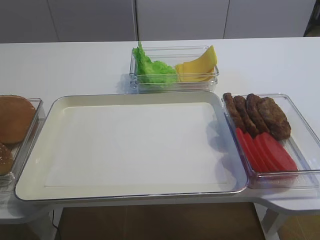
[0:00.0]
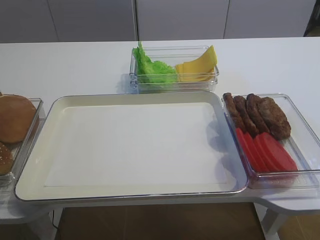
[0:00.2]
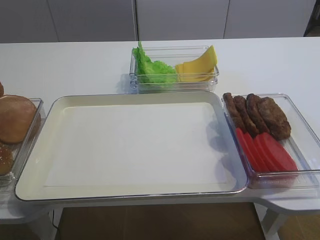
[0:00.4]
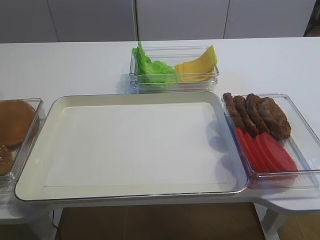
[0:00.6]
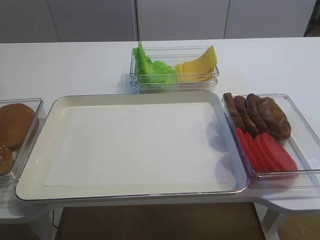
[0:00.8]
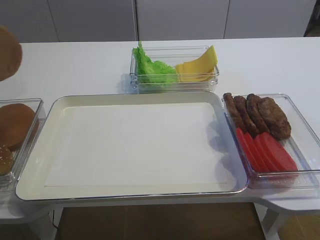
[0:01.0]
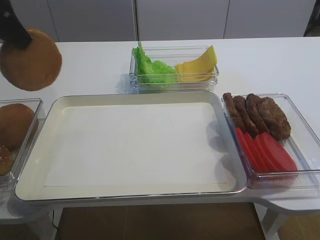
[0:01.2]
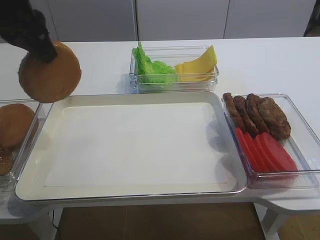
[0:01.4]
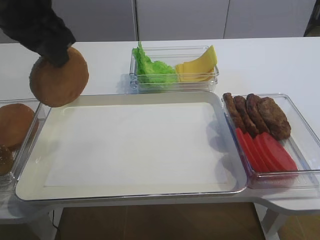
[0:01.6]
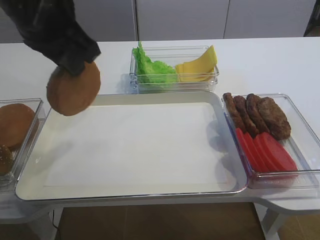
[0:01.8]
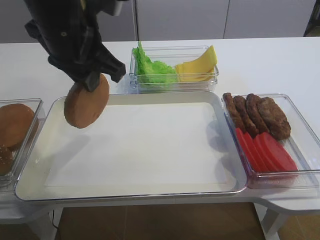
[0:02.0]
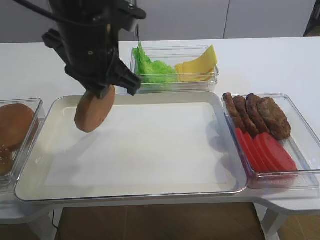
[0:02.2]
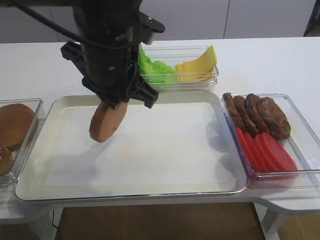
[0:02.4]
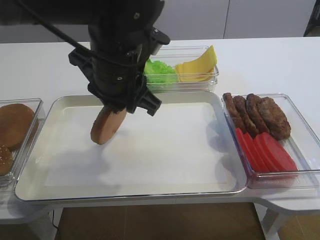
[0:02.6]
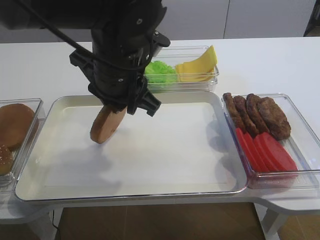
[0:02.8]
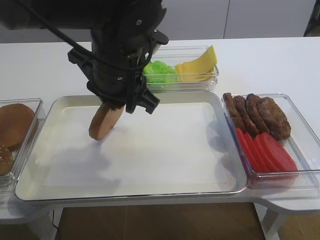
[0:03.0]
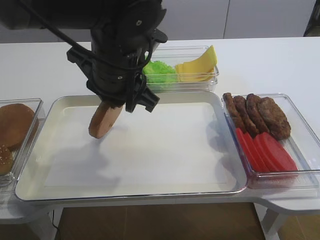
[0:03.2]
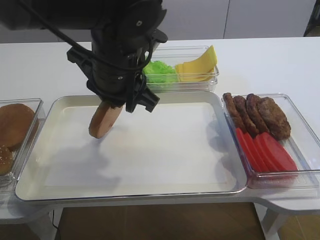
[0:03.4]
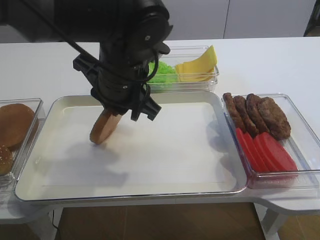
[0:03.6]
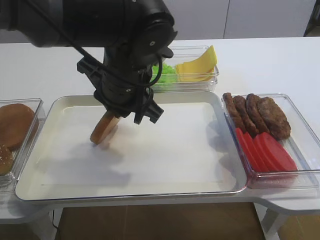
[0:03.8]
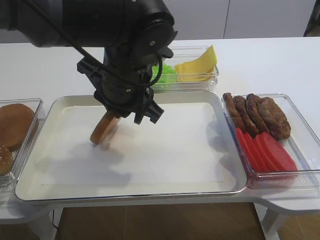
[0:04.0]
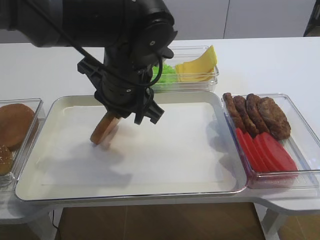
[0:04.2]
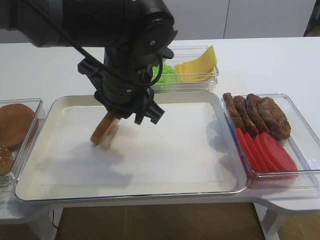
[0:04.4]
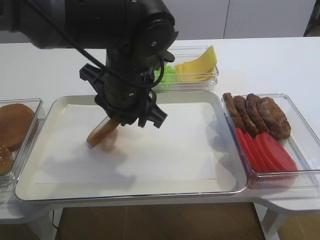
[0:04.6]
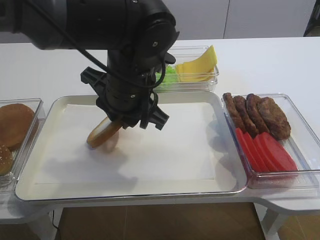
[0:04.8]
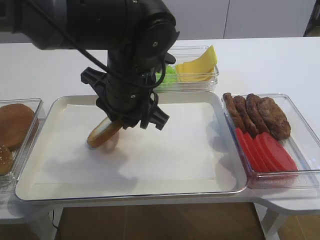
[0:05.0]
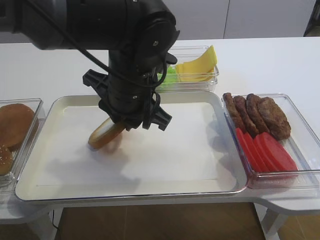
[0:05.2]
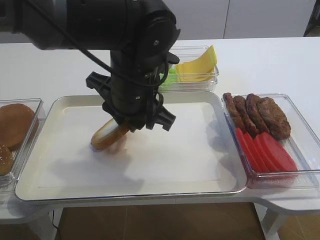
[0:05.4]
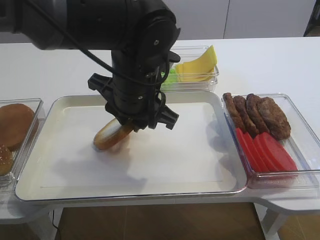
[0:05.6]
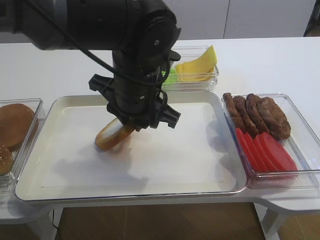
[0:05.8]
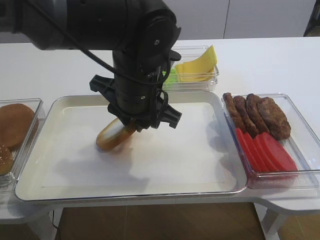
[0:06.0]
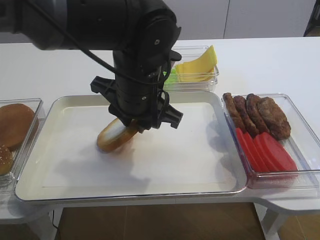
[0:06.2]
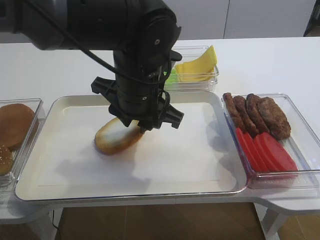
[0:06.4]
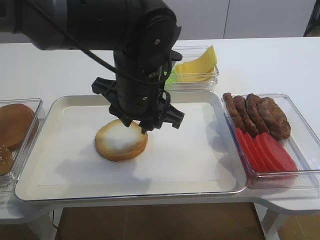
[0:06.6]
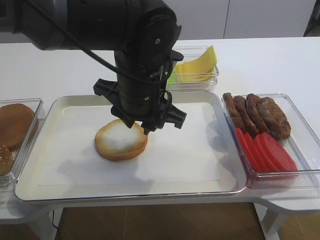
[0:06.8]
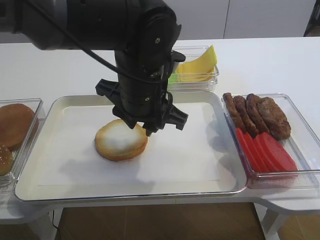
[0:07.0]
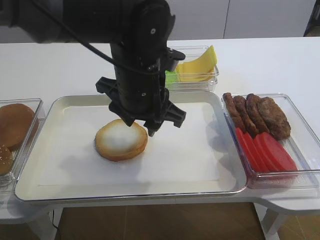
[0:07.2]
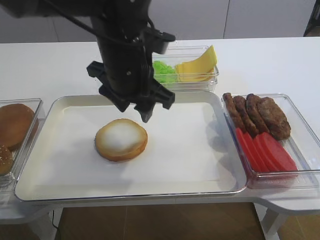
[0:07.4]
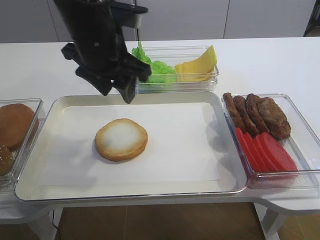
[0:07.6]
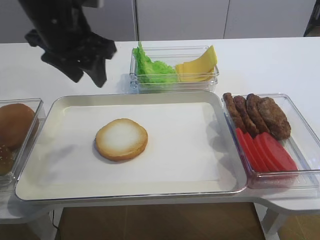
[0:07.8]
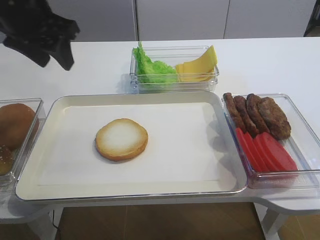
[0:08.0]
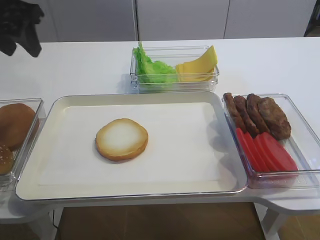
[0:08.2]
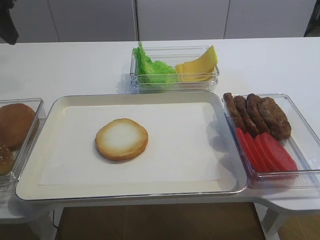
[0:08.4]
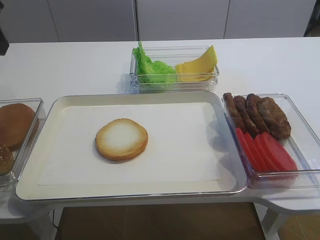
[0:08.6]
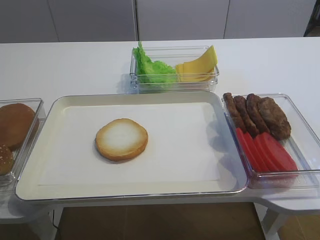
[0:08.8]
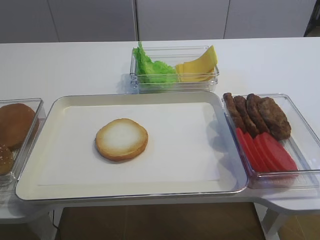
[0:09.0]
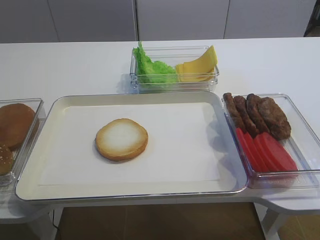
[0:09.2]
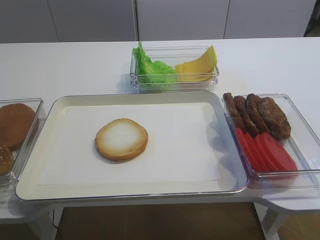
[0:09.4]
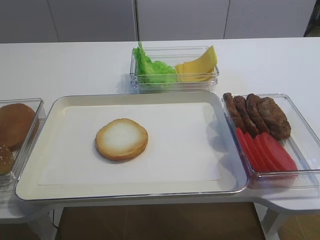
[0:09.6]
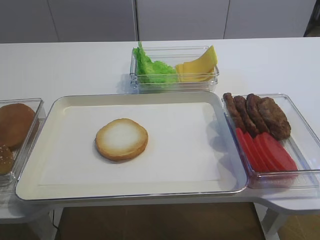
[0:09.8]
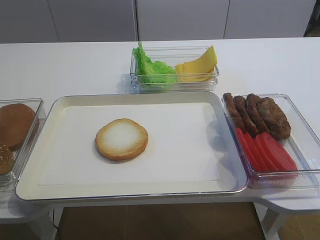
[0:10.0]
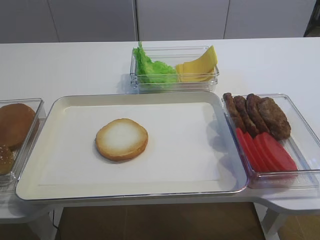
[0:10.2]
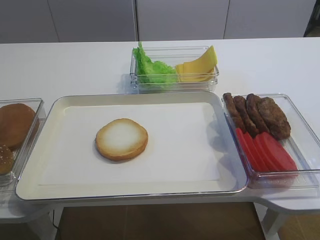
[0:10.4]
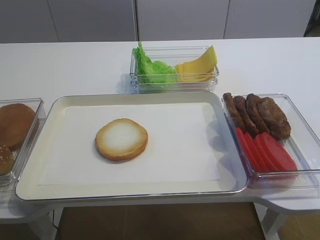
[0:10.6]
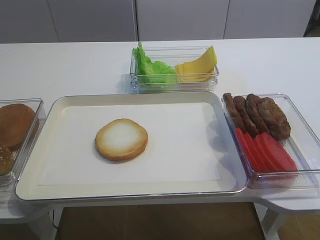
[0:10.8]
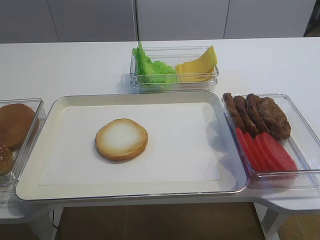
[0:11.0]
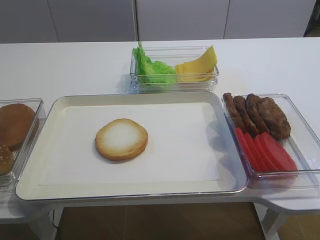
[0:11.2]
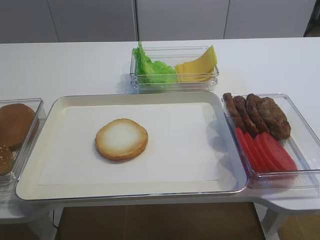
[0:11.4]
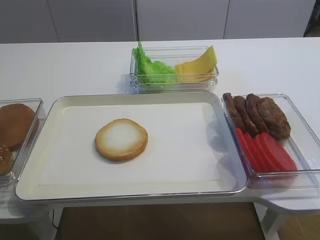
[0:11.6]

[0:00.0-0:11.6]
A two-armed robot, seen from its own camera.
Step, 0:01.2 to 0:07.4: Place the bread slice on the tray with the left gripper.
0:00.0 to 0:01.4: The left gripper travels to the right and upward by approximately 20 cm.
0:01.4 to 0:02.8: The left gripper is displaced to the right and downward by about 15 cm.
0:02.8 to 0:05.8: The grippers stay close to where they were, moving slightly.
0:05.8 to 0:07.2: The left gripper opens.
0:07.2 to 0:08.8: The left gripper heads to the left and upward, covering roughly 25 cm.

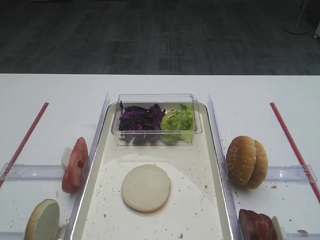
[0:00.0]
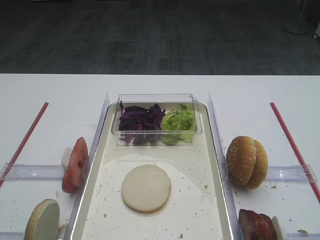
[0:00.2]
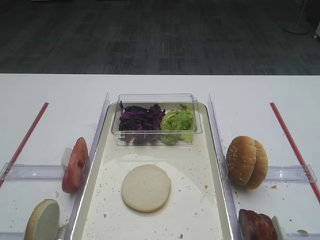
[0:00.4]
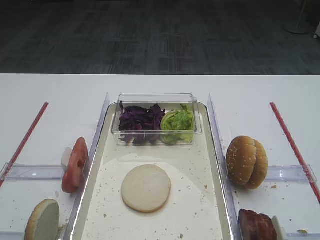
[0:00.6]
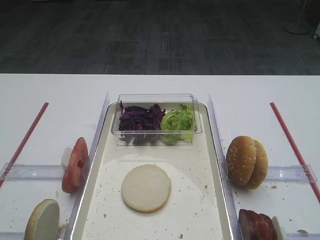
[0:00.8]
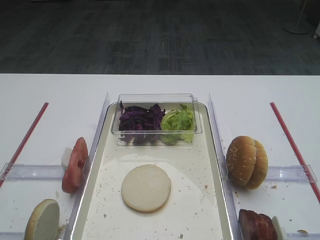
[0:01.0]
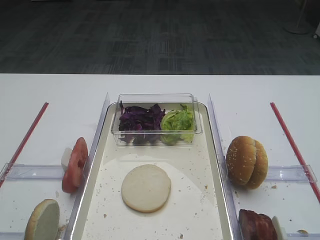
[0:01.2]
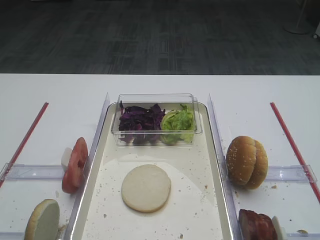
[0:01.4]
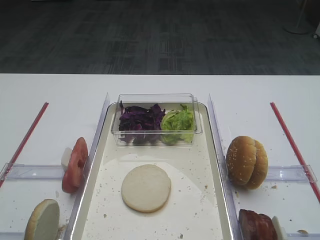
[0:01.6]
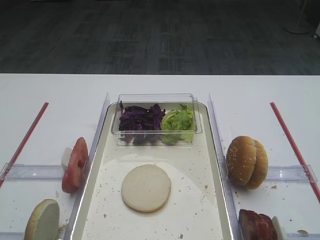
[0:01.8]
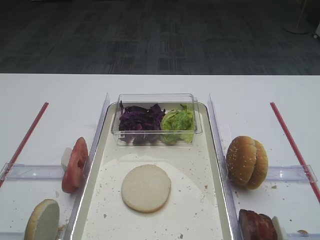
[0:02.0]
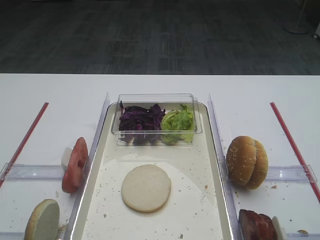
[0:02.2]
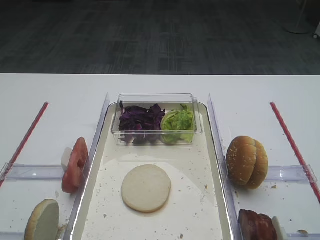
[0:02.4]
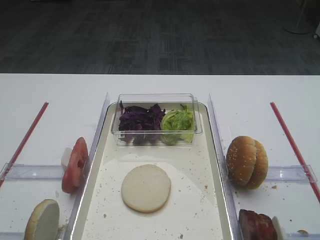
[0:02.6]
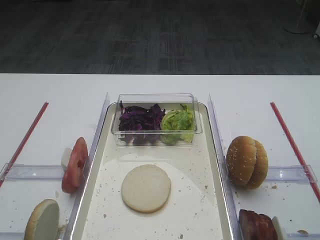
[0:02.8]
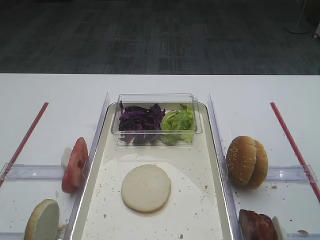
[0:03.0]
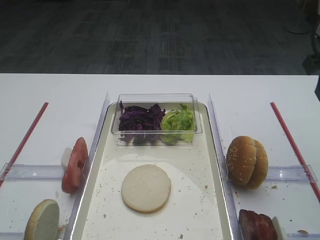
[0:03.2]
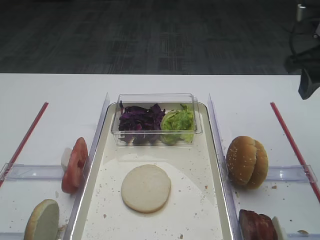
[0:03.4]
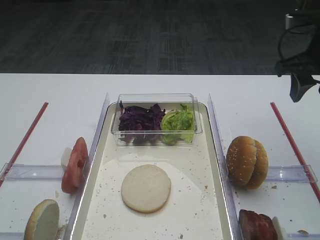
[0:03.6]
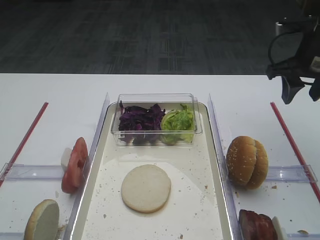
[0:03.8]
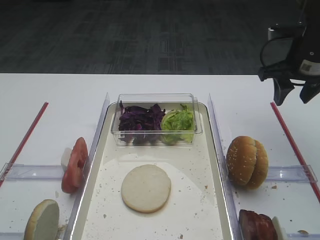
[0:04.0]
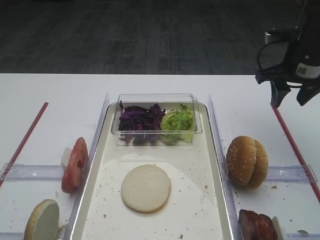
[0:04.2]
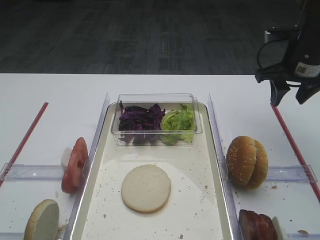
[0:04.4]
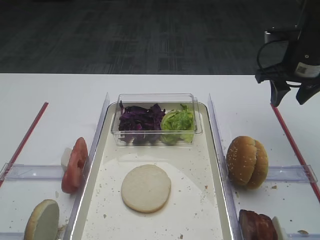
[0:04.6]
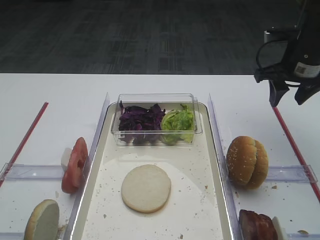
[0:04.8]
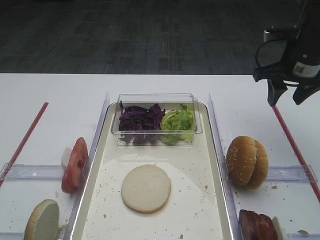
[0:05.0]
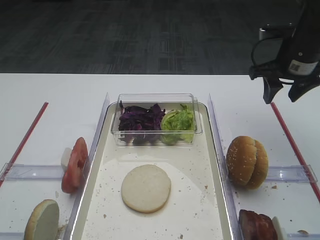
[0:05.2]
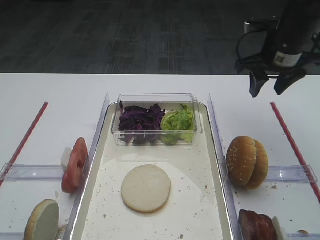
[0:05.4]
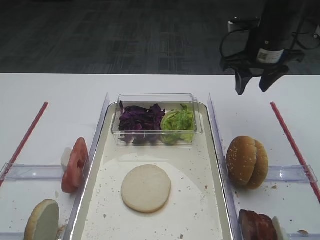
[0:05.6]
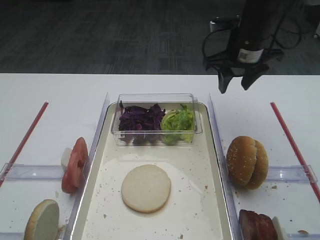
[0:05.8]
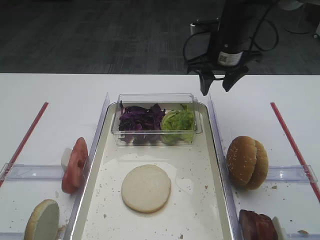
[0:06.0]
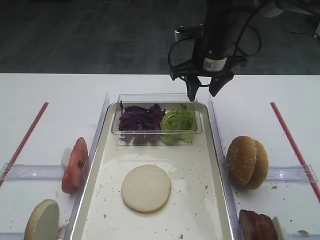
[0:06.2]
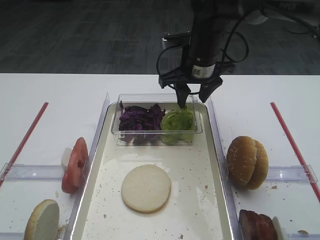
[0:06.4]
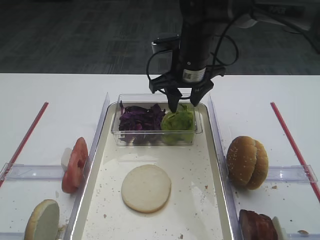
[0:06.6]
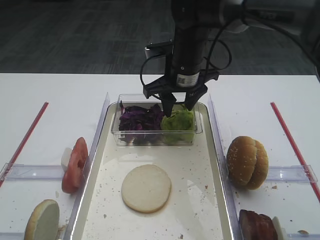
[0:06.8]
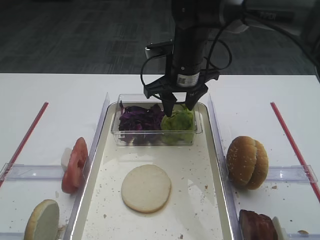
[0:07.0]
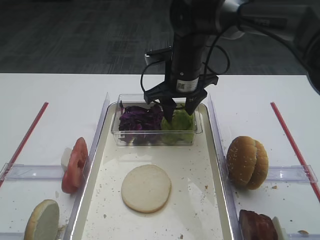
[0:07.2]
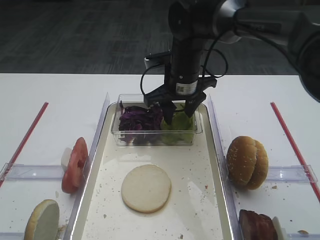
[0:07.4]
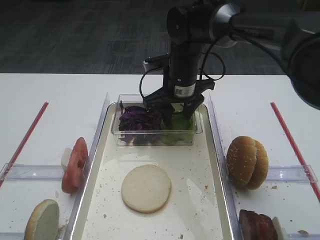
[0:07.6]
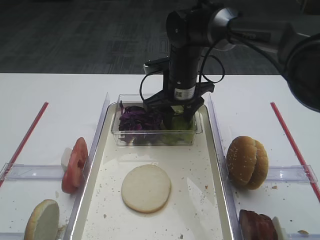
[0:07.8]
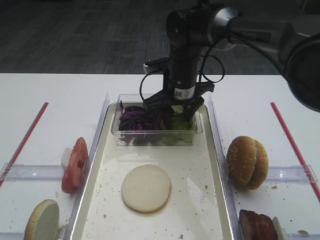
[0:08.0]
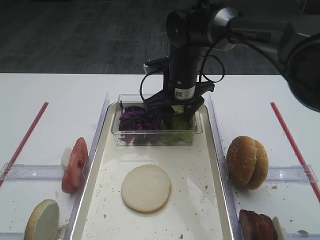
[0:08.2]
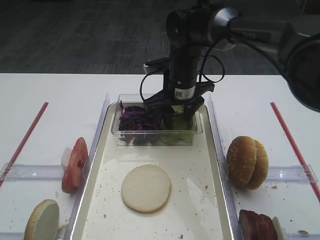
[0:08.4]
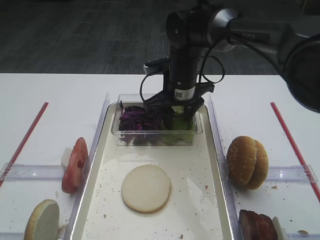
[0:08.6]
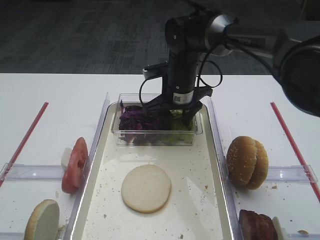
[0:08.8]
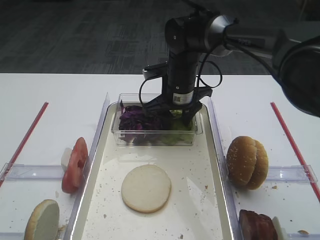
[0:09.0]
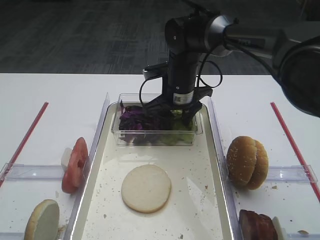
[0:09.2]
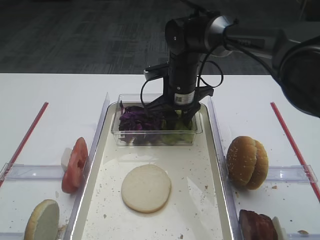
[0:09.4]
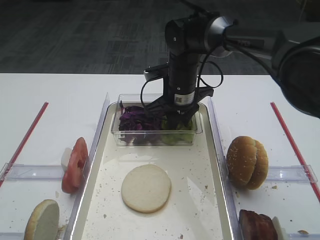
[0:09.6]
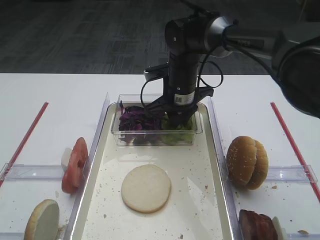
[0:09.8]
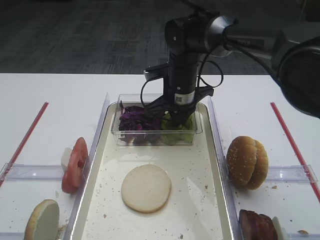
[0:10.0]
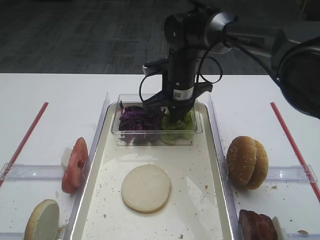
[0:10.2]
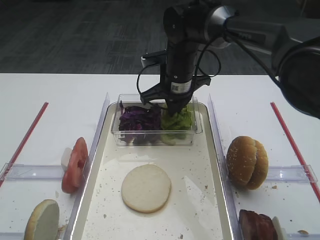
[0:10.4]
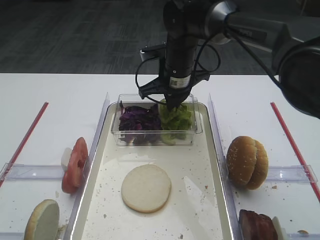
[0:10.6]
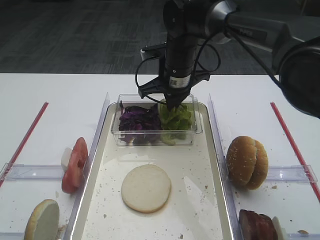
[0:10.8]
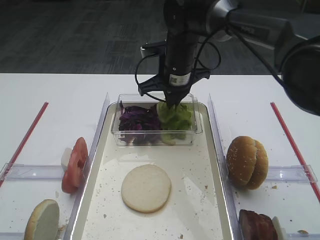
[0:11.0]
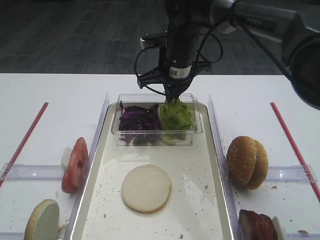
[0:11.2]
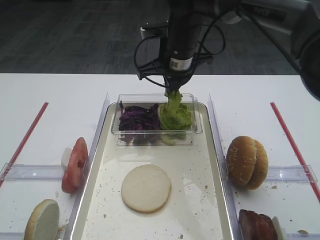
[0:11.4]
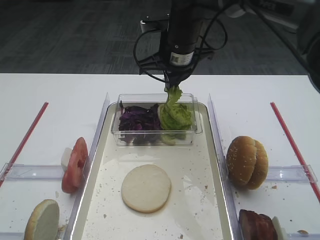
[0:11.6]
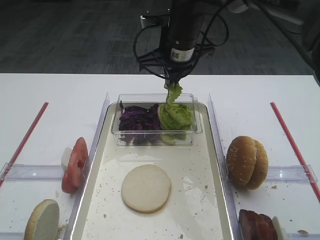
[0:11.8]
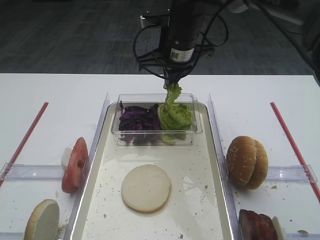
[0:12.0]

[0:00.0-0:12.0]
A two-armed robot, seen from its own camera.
Step, 0:00.0 to 0:11.4: Pick up the lettuce leaf with the right gripper.
0:03.0 to 0:04.4: The right gripper shifts roughly 20 cm forward and downward.
0:04.4 to 0:06.0: The right gripper heads to the left, covering some 10 cm.
0:06.0 to 0:07.6: The right gripper is displaced to the left and downward by approximately 10 cm.
0:07.6 to 0:09.0: The grippers make only small movements.
0:09.0 to 0:10.4: The right gripper closes.
0:10.4 to 0:12.0: The right gripper shifts approximately 5 cm upward.
